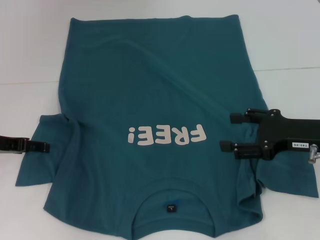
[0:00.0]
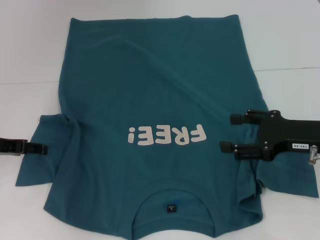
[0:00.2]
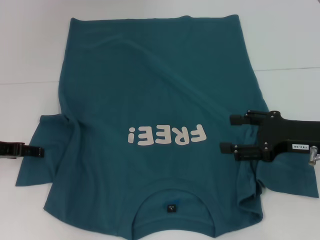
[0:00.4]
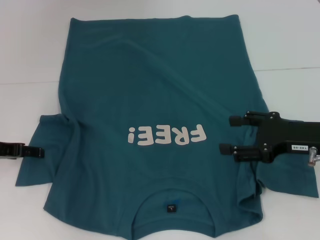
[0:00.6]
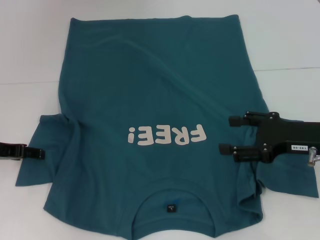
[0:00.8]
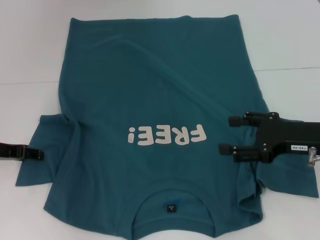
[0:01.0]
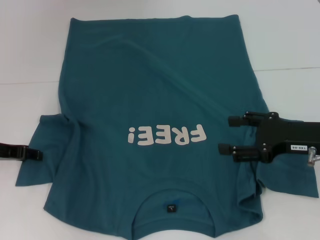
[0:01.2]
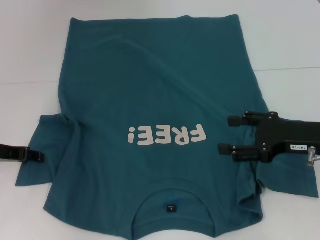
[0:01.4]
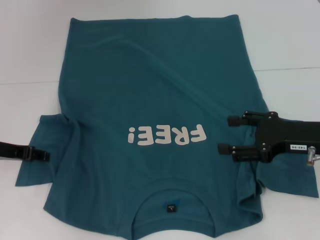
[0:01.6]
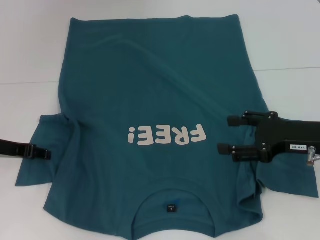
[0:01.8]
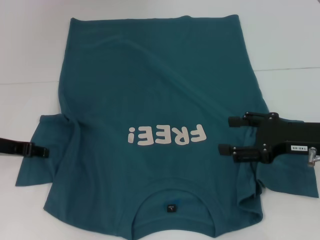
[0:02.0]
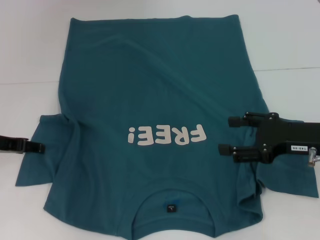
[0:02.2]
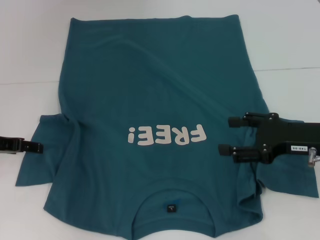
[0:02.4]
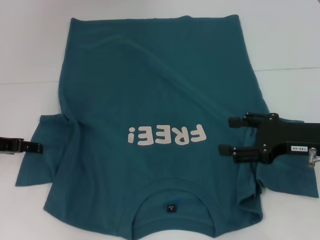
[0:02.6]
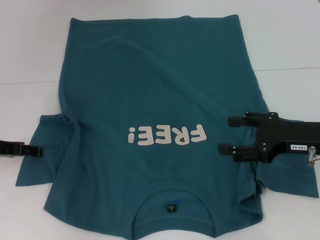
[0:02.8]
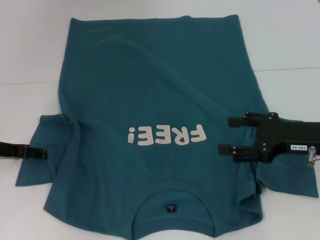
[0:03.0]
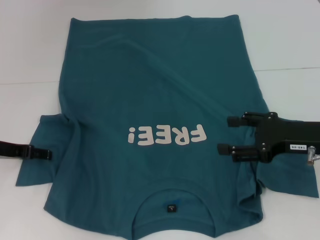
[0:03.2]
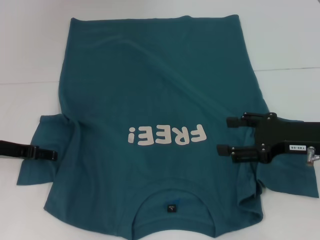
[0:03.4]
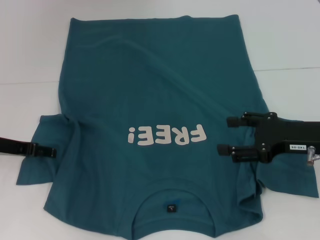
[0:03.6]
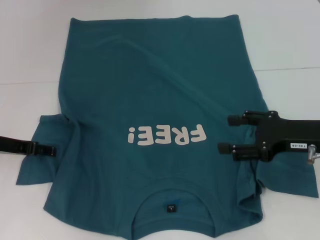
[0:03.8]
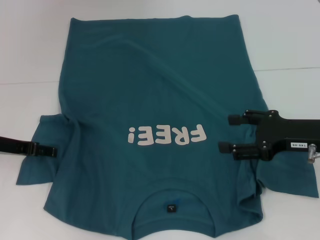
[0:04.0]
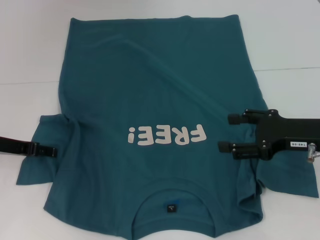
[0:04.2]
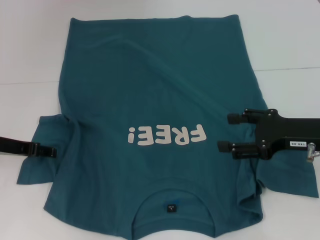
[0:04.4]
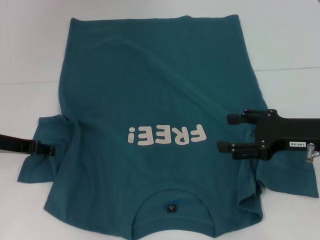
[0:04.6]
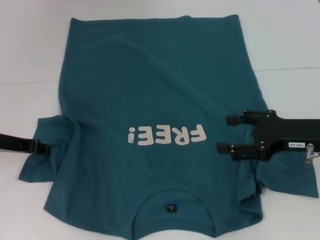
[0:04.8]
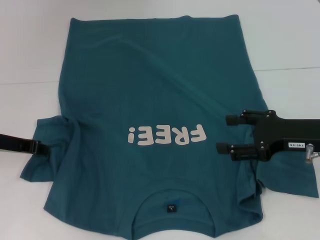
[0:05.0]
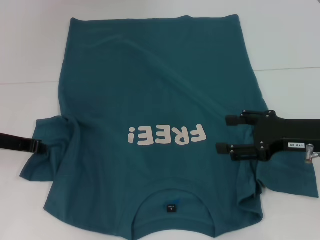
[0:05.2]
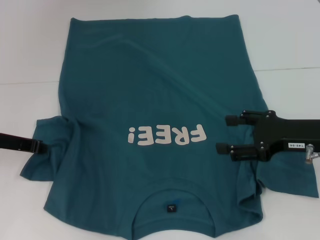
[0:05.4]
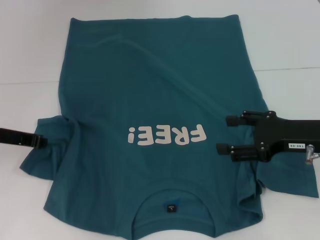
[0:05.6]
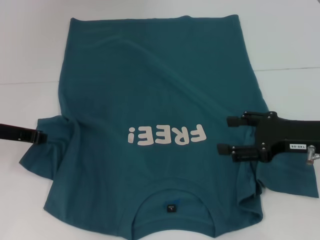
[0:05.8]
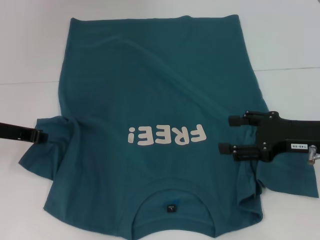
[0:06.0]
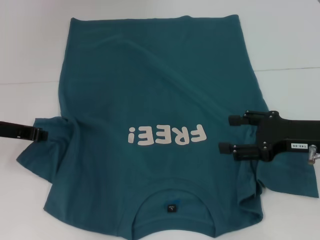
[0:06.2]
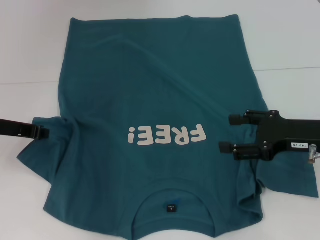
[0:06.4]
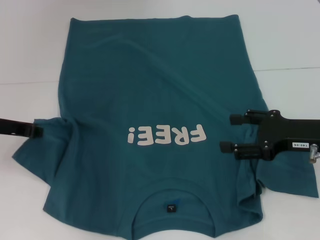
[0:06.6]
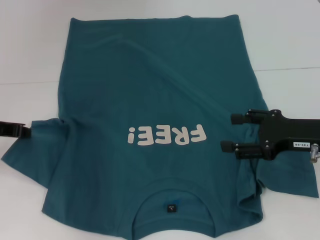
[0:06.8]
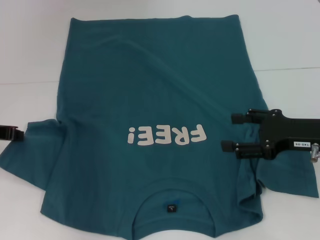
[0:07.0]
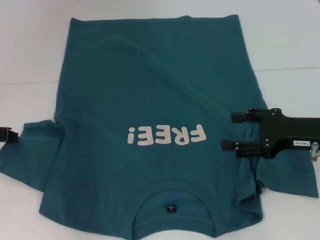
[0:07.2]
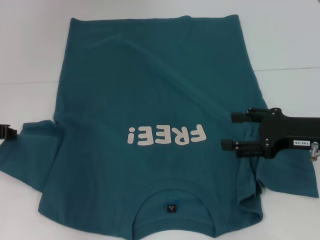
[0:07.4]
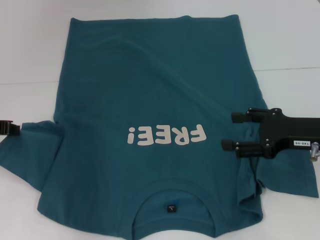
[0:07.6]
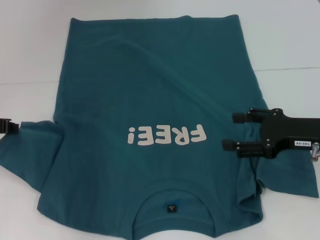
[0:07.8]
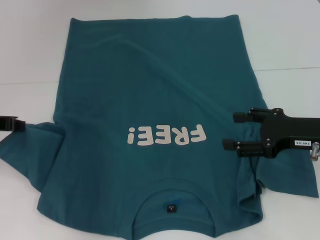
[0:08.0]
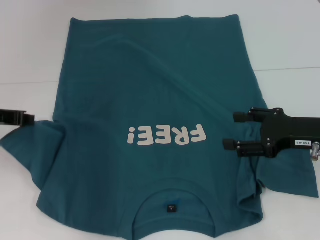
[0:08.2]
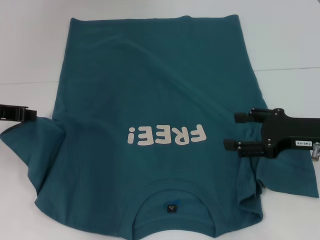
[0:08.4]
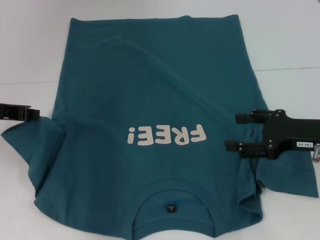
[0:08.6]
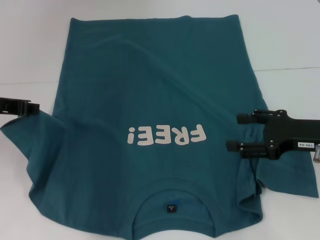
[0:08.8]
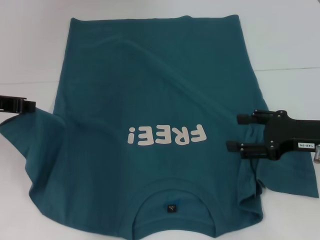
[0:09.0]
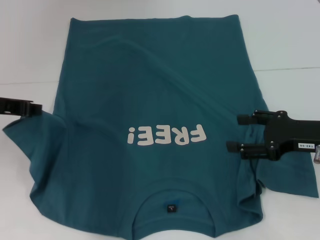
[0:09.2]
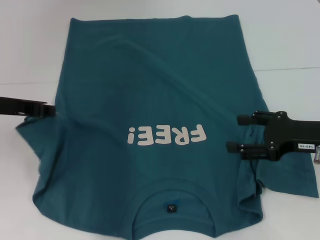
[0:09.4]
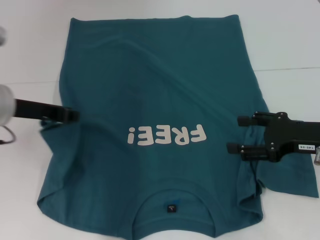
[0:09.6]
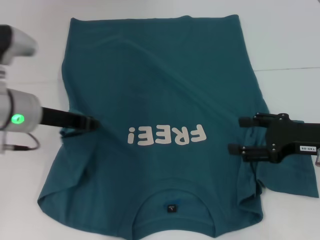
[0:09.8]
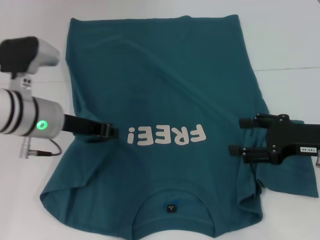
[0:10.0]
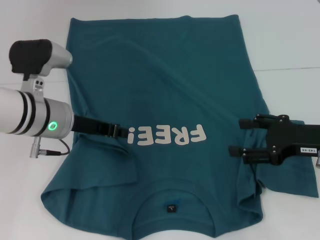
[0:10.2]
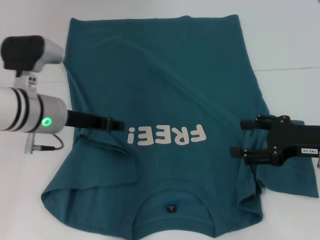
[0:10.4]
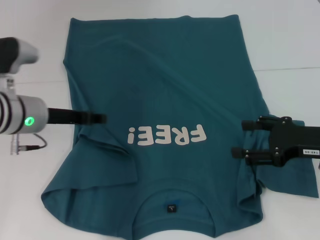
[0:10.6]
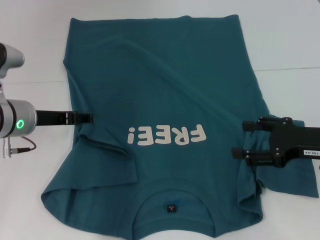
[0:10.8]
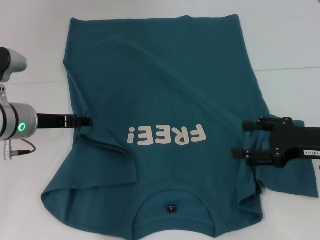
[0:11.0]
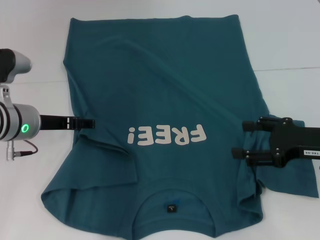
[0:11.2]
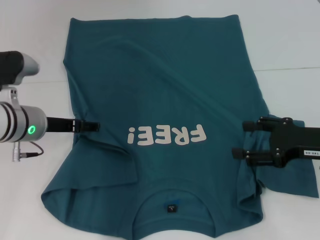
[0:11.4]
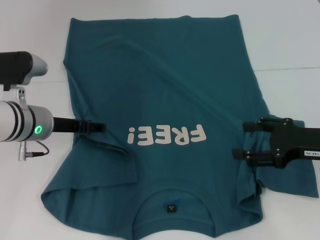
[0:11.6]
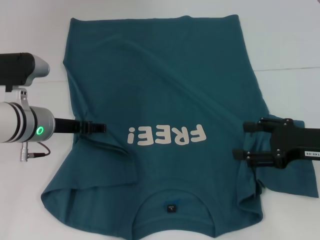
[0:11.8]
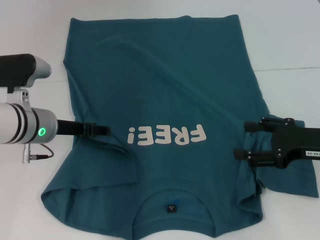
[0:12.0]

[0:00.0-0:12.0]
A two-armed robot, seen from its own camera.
0:00.0 to 0:01.6: The left gripper closes up.
0:03.0 to 0:04.4: The grippers stay close to where they were, moving slightly.
0:04.4 to 0:06.0: The left gripper closes.
0:06.0 to 0:07.6: The grippers stay close to where they were, moving slightly.
0:07.6 to 0:09.0: The left gripper shifts by approximately 5 cm.
0:09.0 to 0:10.4: The left gripper goes roughly 10 cm to the right and downward.
0:10.4 to 0:12.0: The left gripper opens.

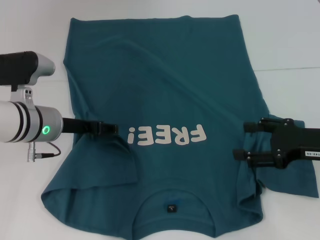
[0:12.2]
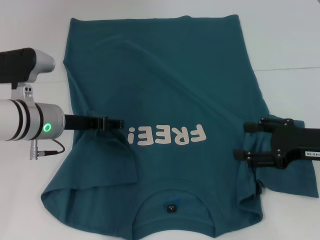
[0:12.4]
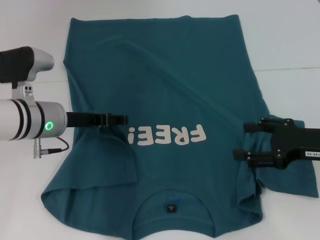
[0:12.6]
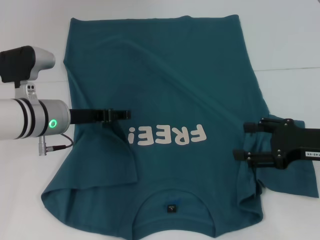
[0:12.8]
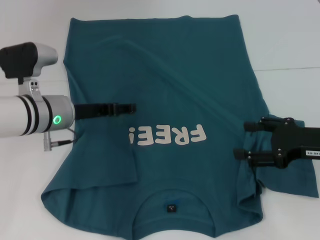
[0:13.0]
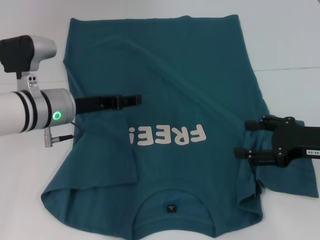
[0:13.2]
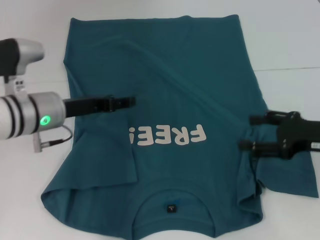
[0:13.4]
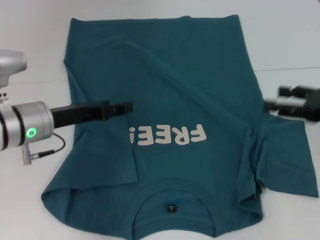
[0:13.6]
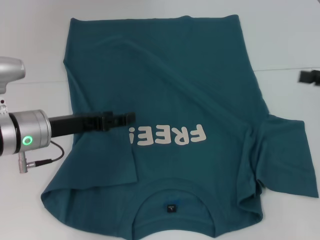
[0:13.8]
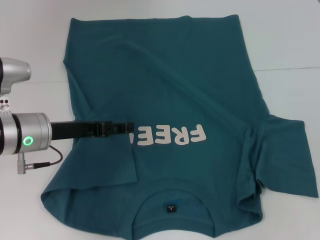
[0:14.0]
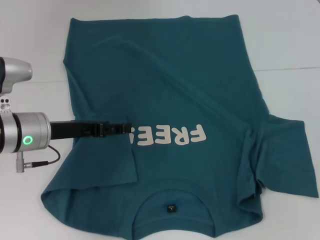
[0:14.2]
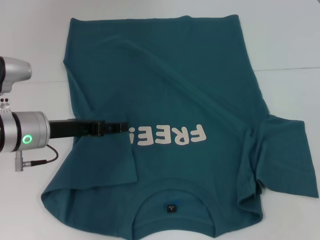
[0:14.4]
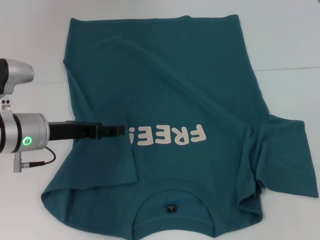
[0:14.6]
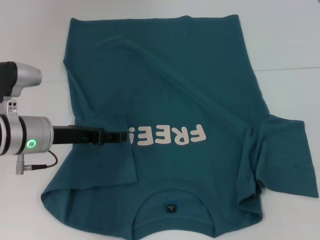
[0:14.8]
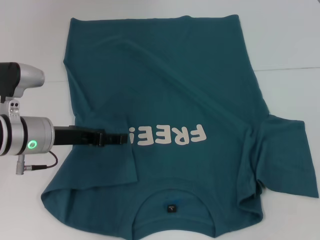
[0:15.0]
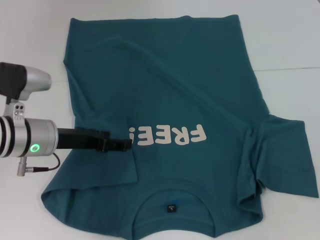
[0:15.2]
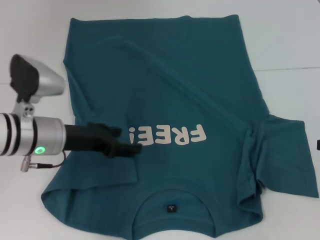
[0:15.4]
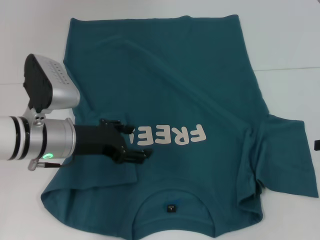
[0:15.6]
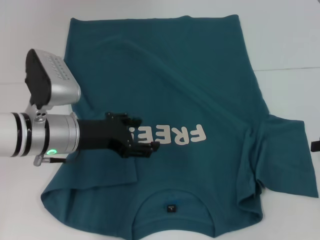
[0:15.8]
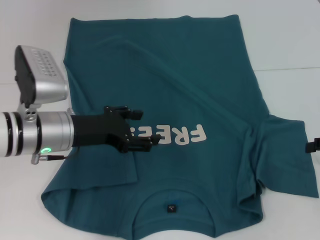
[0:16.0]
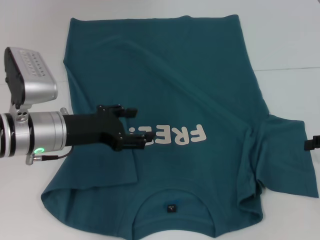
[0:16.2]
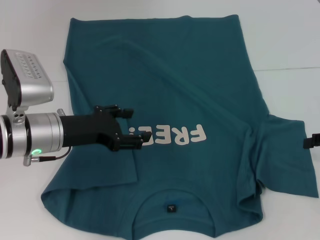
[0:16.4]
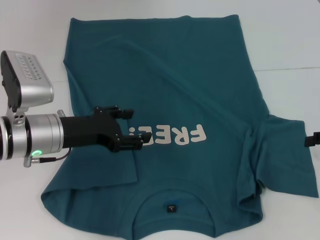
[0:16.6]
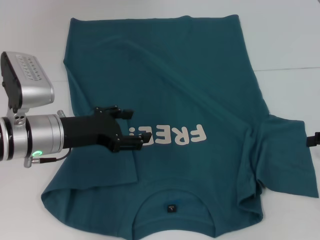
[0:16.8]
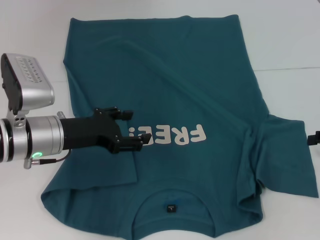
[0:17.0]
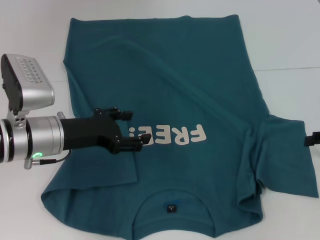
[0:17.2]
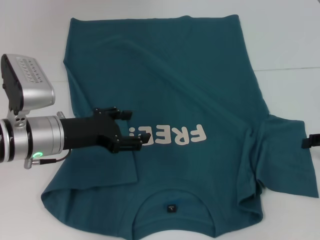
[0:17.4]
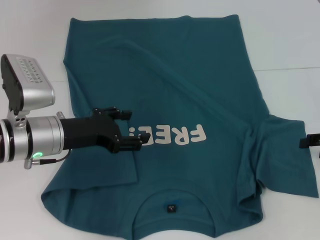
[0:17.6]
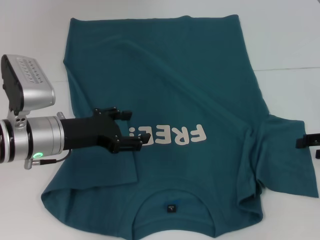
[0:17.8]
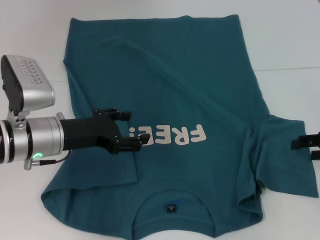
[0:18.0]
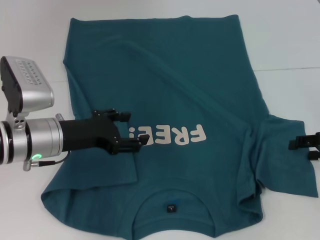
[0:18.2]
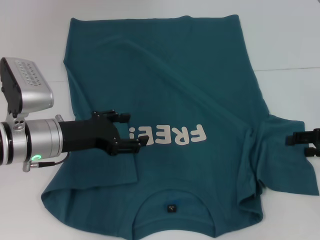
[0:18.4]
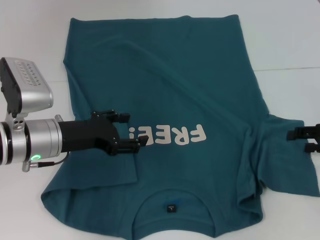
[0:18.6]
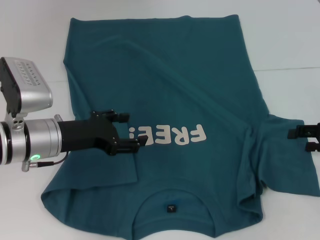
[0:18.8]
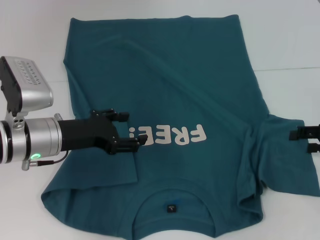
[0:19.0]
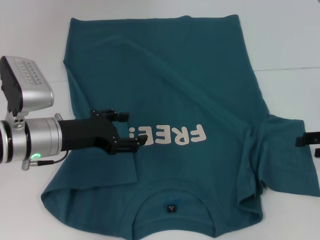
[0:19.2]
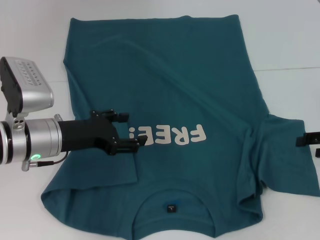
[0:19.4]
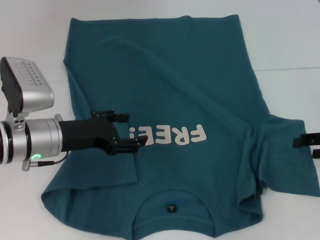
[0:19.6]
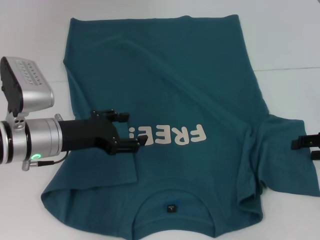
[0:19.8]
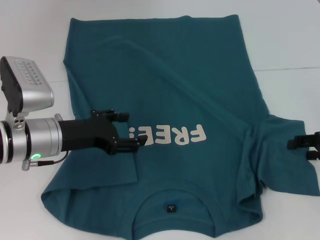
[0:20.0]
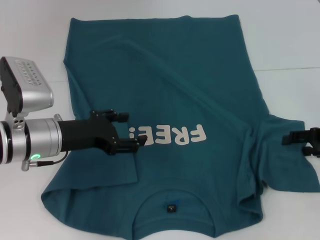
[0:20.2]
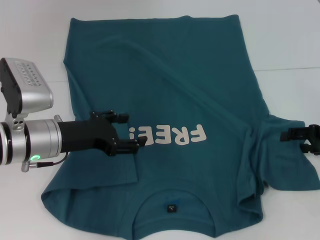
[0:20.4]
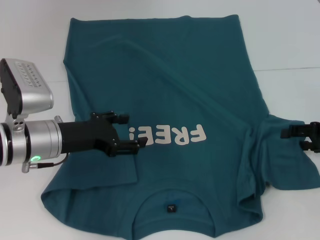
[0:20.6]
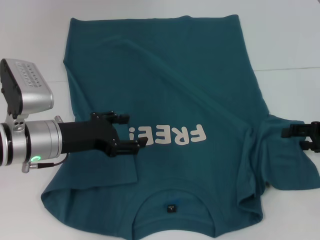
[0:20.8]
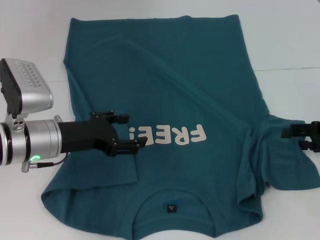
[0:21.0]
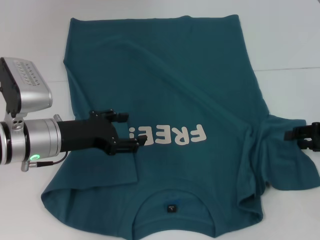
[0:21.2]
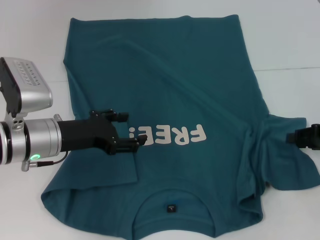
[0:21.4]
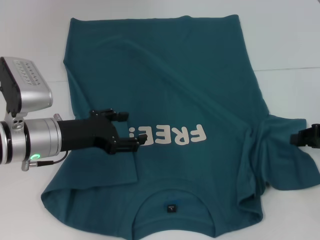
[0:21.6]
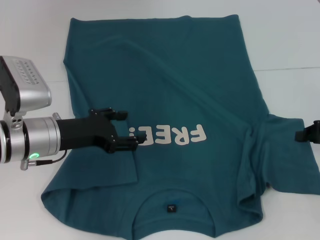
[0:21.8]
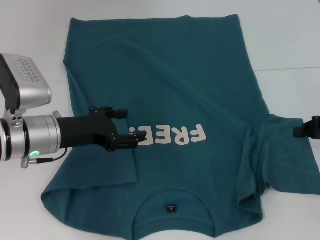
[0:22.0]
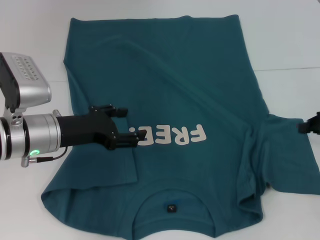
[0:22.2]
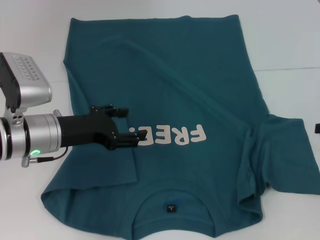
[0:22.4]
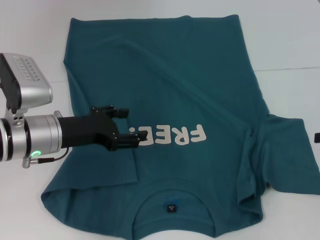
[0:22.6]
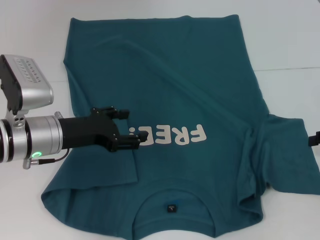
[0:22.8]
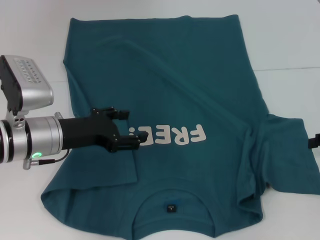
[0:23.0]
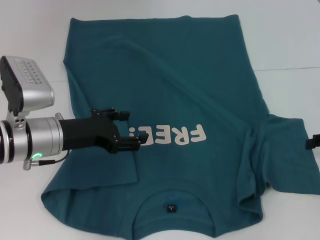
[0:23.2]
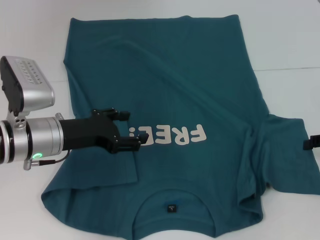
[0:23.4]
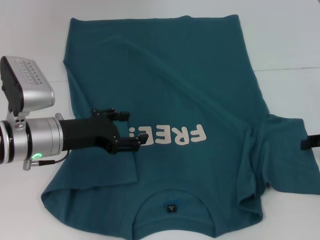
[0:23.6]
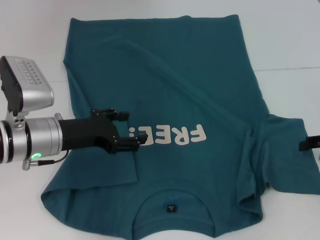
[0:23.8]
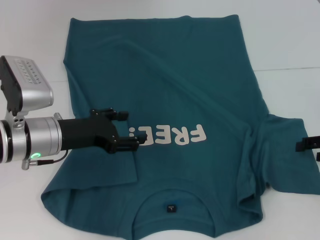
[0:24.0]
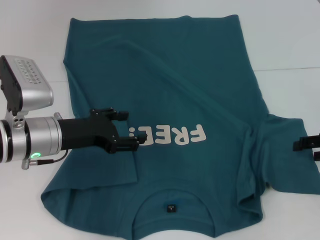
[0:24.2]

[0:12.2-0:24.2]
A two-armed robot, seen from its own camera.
0:12.2 to 0:13.8: The right gripper heads to the right and upward, covering approximately 10 cm.
0:13.8 to 0:15.2: The right gripper goes about 5 cm downward.
0:16.6 to 0:21.2: The grippers make only small movements.
0:21.2 to 0:22.6: The right gripper closes.
0:22.6 to 0:24.2: The right gripper opens.
